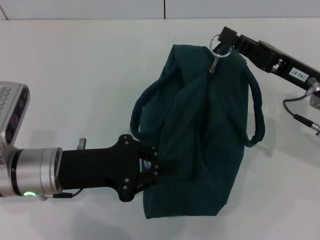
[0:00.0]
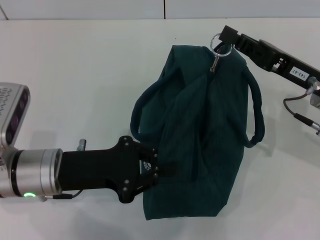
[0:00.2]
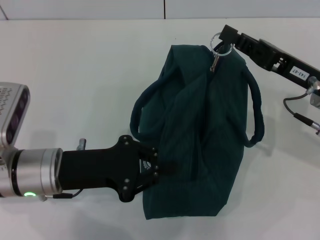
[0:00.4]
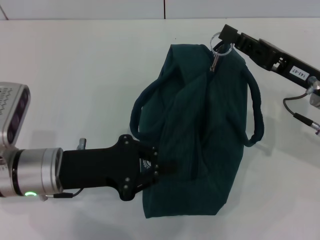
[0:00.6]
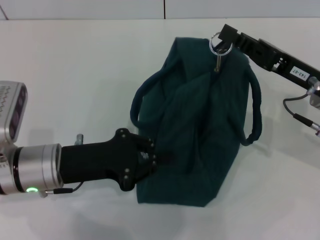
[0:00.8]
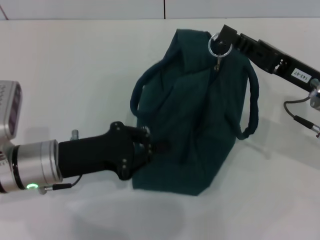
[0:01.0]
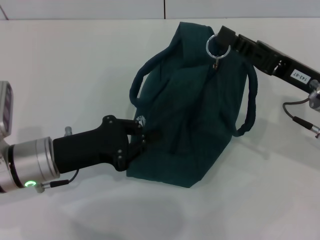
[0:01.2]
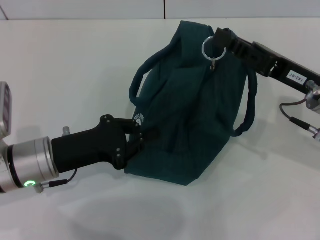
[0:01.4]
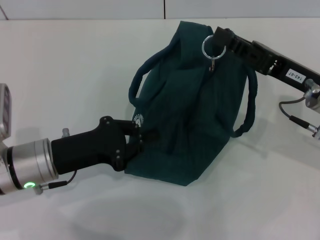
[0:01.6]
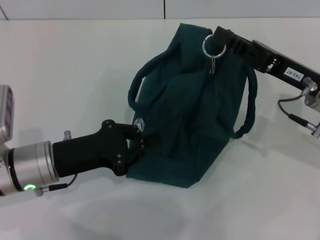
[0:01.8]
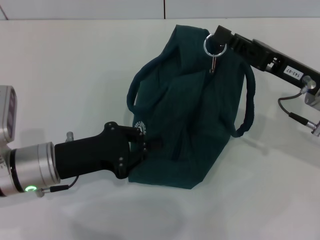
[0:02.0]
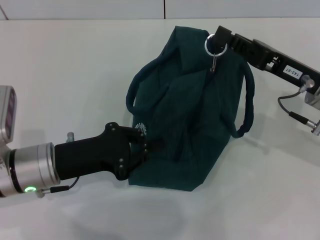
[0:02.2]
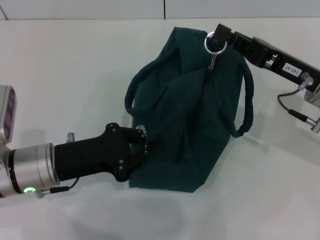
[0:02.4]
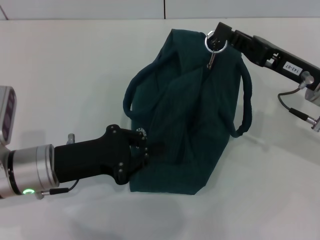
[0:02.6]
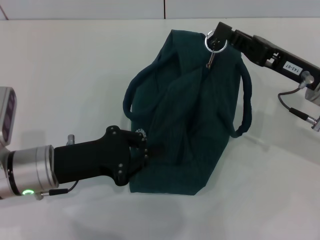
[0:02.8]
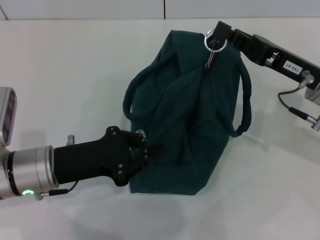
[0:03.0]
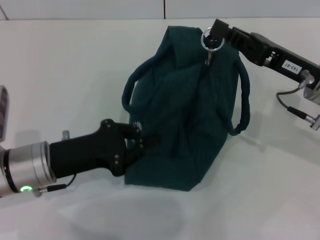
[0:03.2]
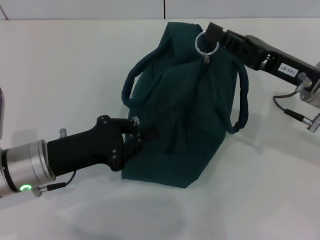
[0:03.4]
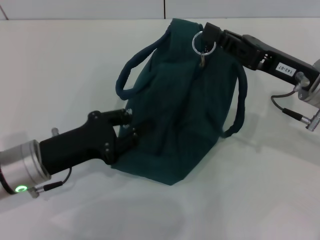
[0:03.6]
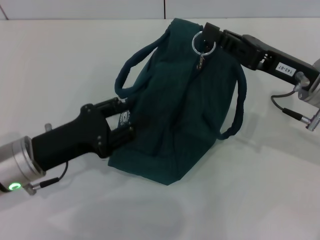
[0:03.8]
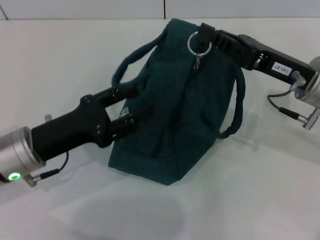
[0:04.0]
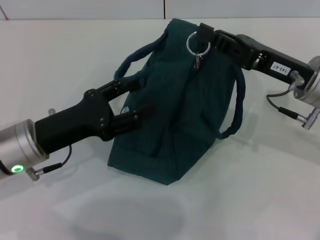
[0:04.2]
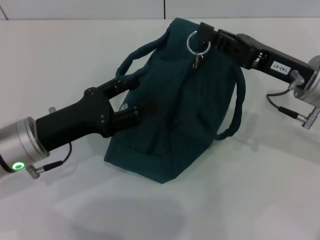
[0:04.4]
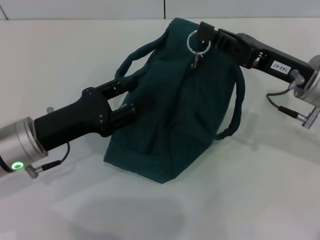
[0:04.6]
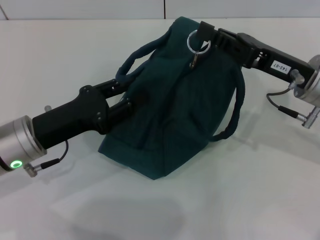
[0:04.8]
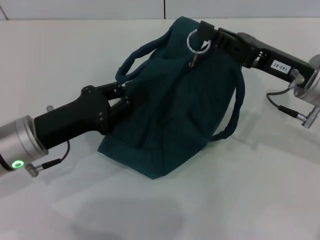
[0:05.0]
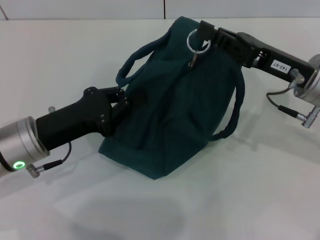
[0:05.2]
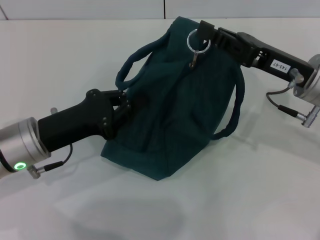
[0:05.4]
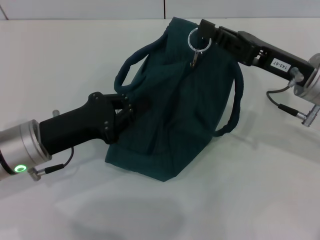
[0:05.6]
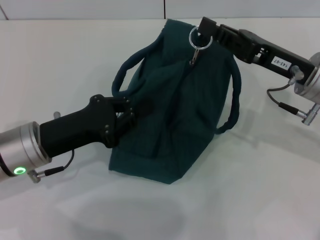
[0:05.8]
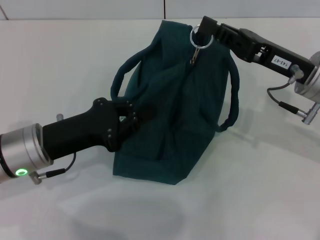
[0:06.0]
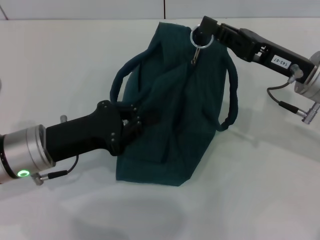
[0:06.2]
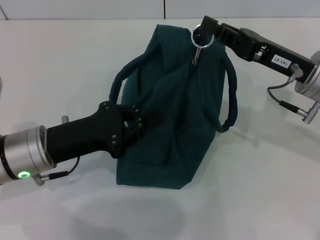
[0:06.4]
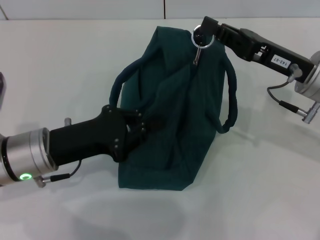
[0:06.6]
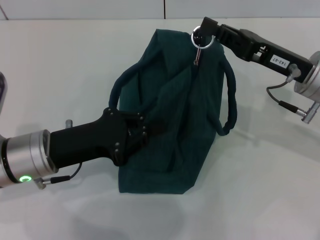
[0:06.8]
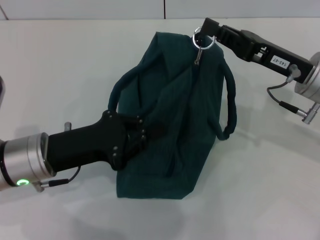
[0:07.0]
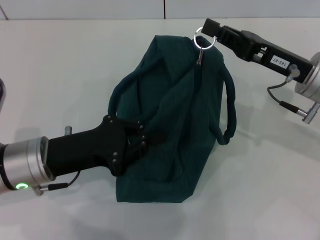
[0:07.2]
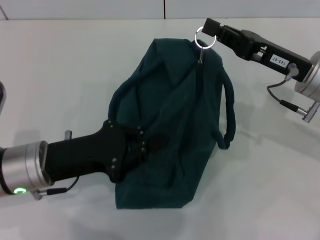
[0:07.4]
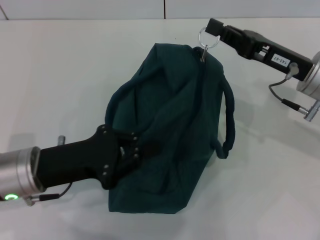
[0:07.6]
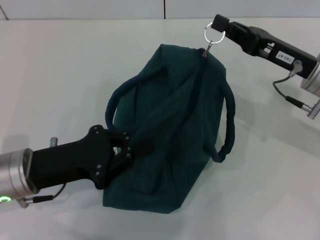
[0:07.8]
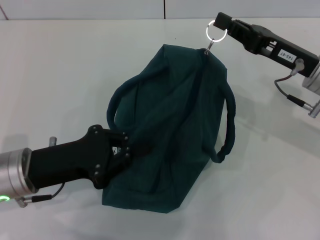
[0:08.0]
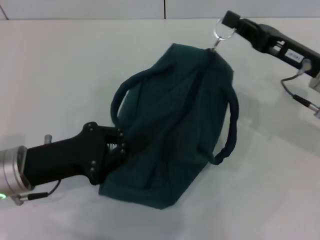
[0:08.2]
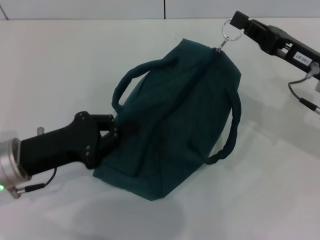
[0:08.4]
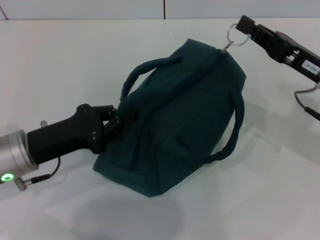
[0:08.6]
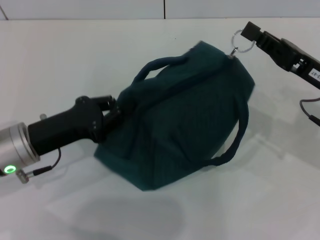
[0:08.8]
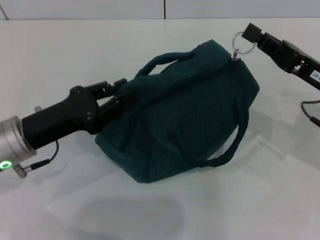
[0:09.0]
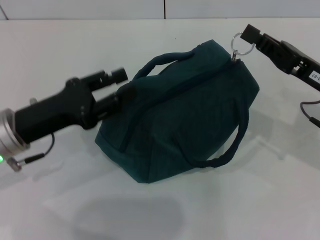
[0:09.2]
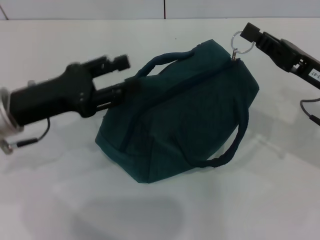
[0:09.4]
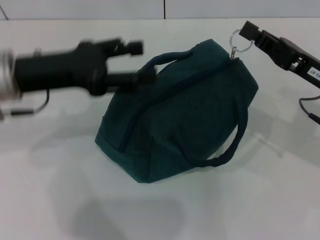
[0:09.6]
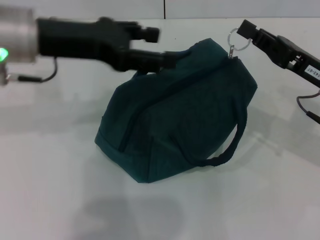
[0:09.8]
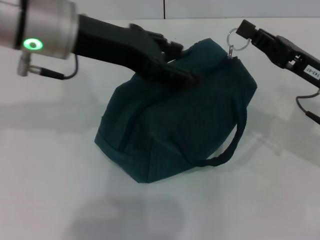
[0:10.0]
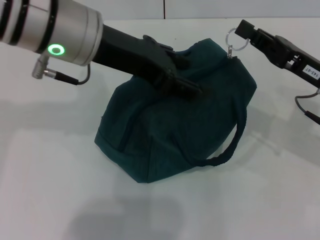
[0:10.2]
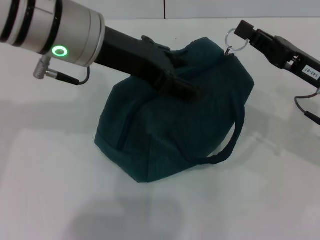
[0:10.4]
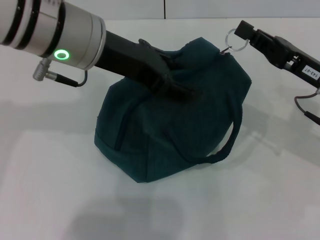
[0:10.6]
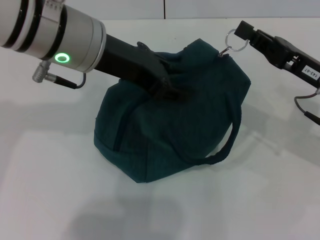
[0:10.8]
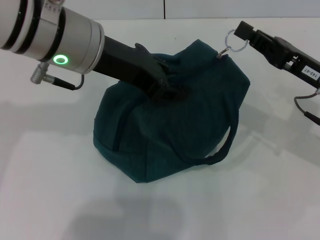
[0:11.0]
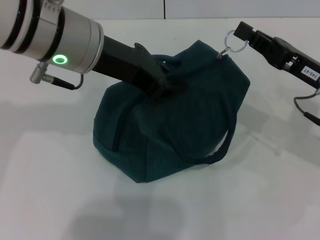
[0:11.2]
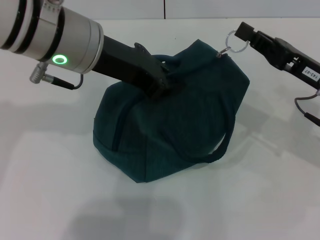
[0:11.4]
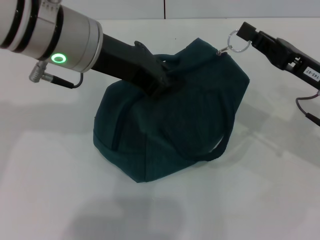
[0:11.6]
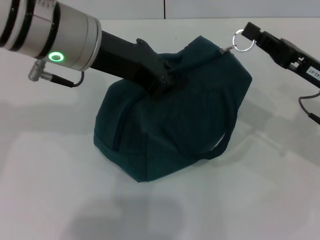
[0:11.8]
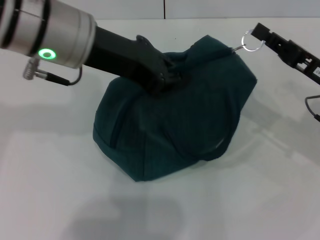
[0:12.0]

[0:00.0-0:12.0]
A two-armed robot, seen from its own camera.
0:01.6 to 0:03.0: The grippers stay close to where they were, moving slightly.
0:03.0 to 0:04.4: The left gripper opens up.
0:04.4 to 0:06.0: The left gripper closes its fingers.
0:07.6 to 0:09.0: The right gripper moves about 5 cm.
0:09.0 to 0:10.4: The left gripper travels upward and to the right by roughly 20 cm, and opens its fingers.
0:10.4 to 0:12.0: The left gripper closes up.

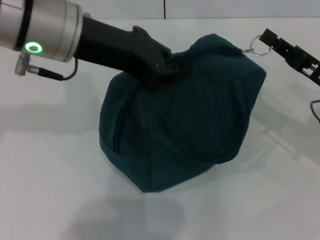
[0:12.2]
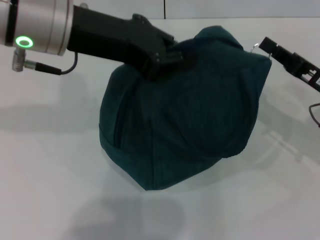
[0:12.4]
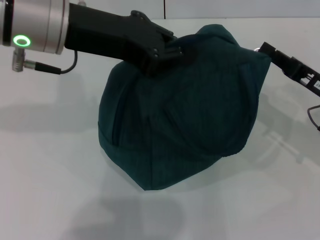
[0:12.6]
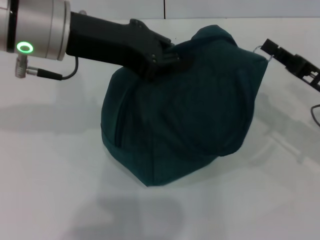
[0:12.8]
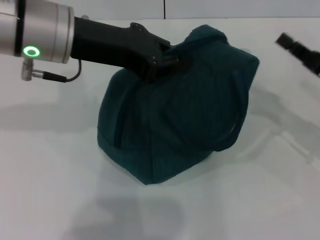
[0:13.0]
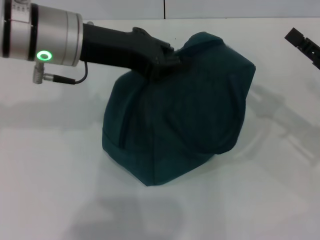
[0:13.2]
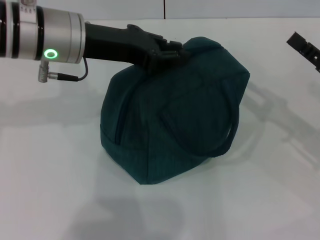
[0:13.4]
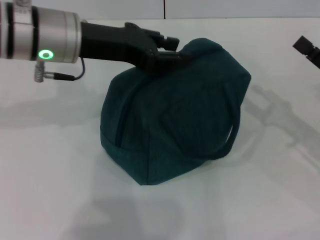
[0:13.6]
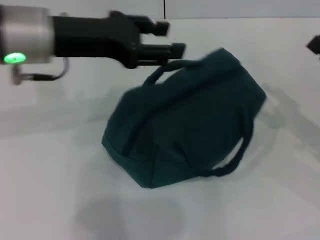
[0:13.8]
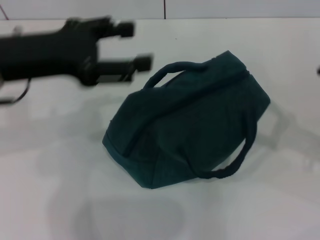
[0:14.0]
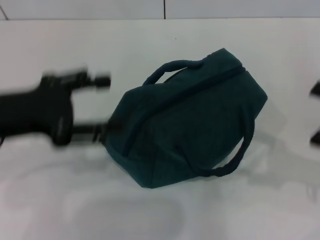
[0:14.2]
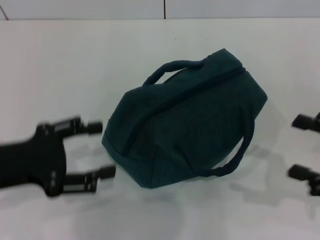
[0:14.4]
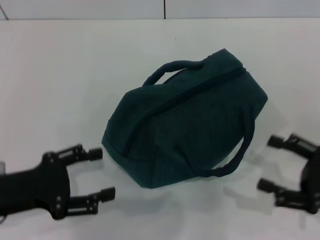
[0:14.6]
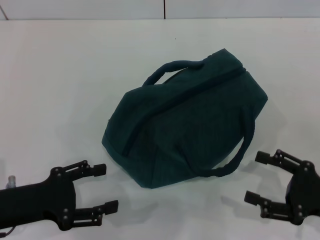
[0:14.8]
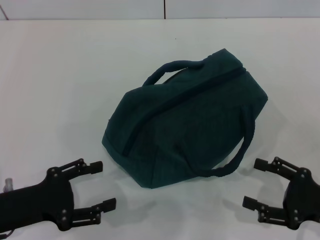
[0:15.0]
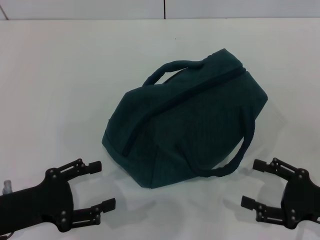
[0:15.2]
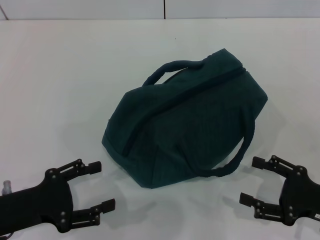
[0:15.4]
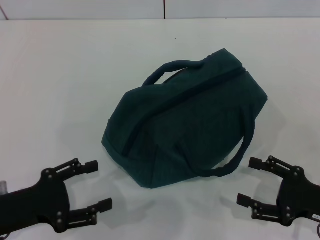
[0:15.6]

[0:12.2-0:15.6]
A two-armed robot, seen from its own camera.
Step, 0:13.0 to 0:13.6: Hold the lunch bag with your left hand.
0:12.2 to 0:13.8: The right gripper moves to the right, roughly 5 cm, and opens, while the left gripper moves approximately 5 cm, and opens up.
0:13.8 to 0:15.6: The right gripper shifts approximately 10 cm backward and downward. Meanwhile the left gripper travels downward, backward and to the left by some 25 cm, and opens.
